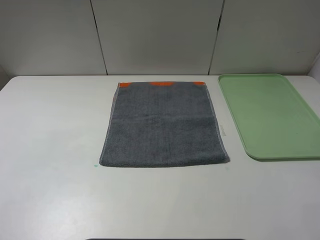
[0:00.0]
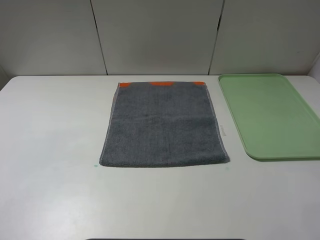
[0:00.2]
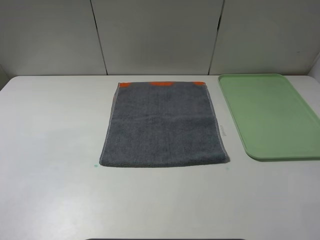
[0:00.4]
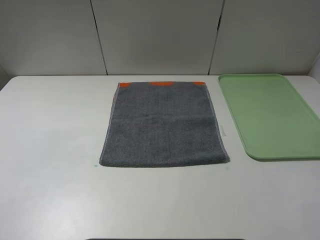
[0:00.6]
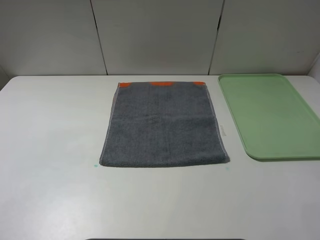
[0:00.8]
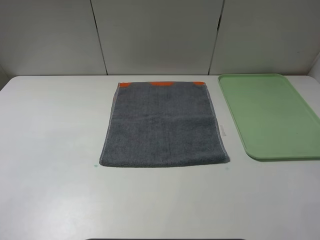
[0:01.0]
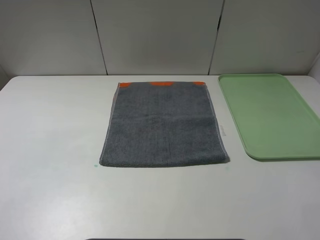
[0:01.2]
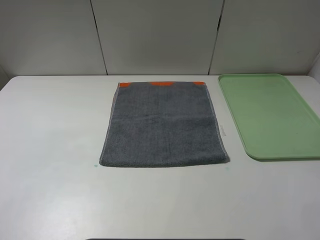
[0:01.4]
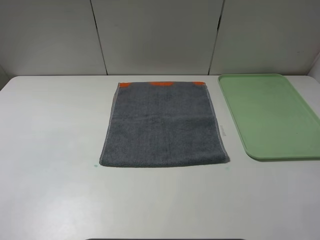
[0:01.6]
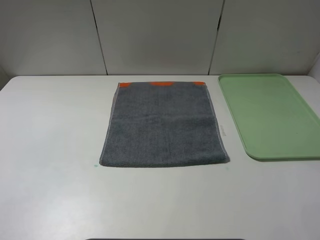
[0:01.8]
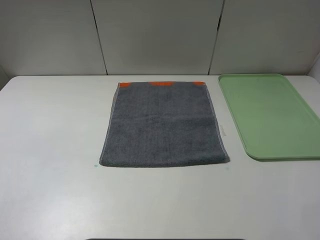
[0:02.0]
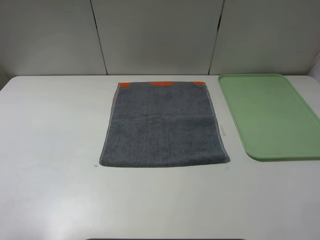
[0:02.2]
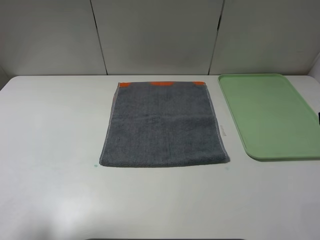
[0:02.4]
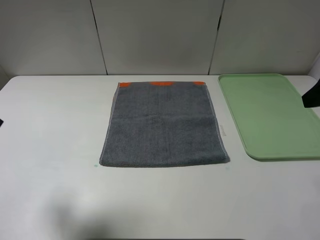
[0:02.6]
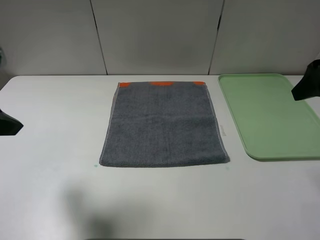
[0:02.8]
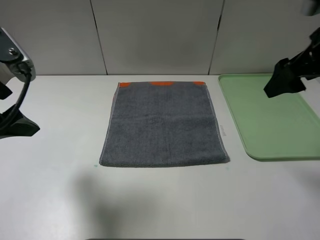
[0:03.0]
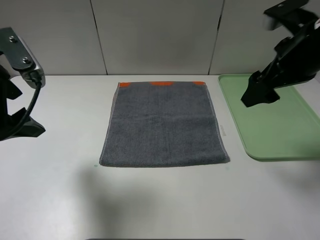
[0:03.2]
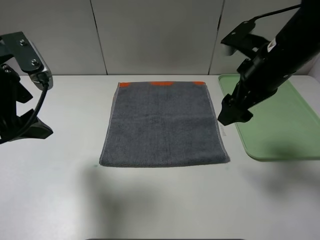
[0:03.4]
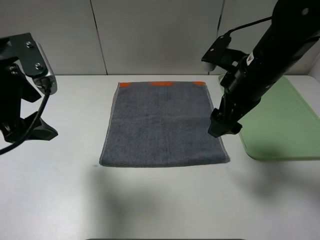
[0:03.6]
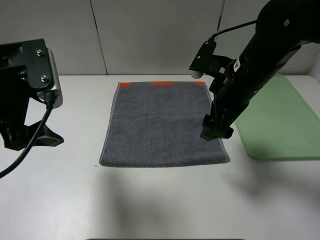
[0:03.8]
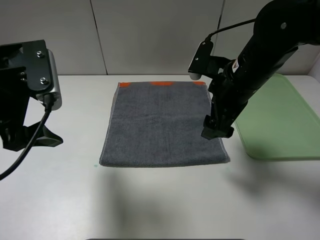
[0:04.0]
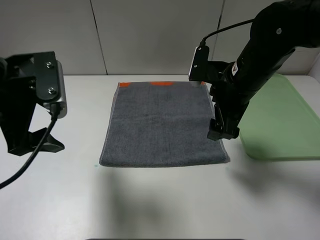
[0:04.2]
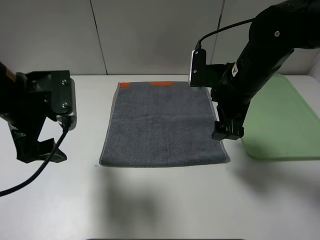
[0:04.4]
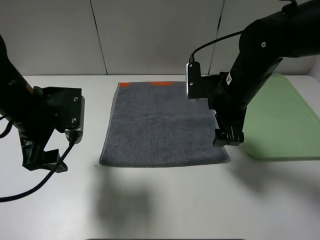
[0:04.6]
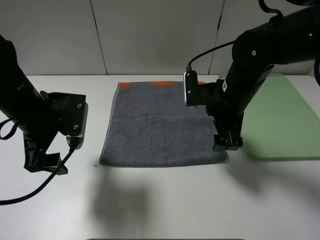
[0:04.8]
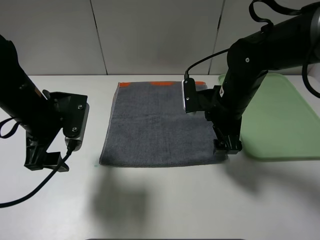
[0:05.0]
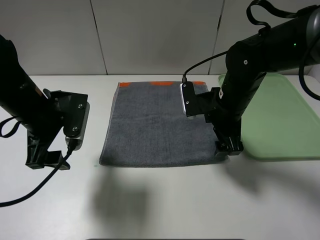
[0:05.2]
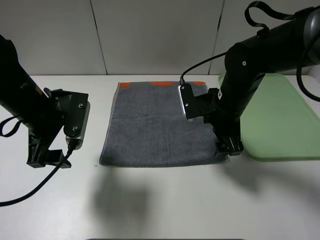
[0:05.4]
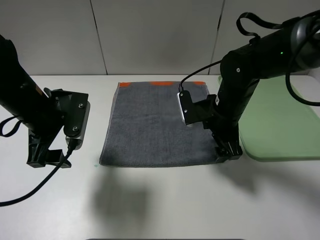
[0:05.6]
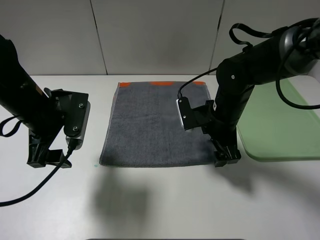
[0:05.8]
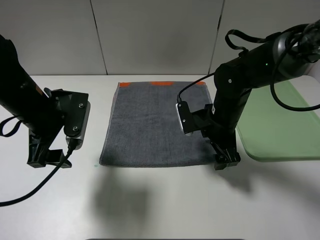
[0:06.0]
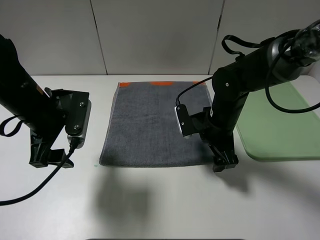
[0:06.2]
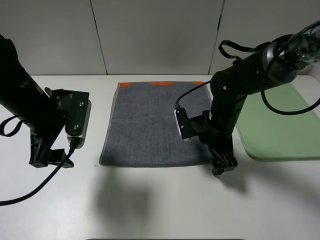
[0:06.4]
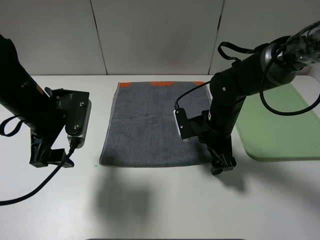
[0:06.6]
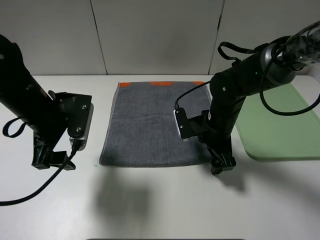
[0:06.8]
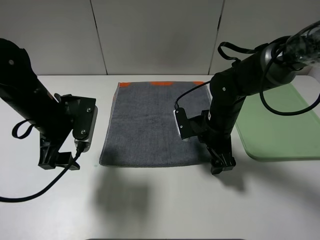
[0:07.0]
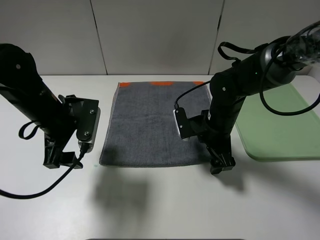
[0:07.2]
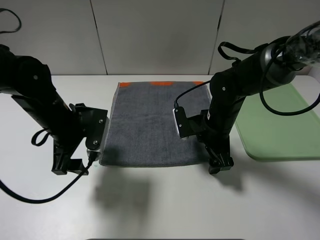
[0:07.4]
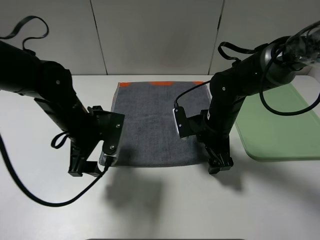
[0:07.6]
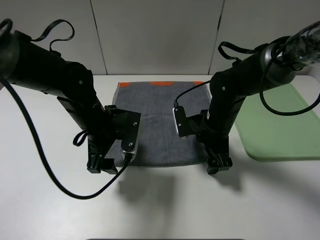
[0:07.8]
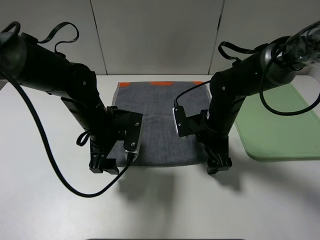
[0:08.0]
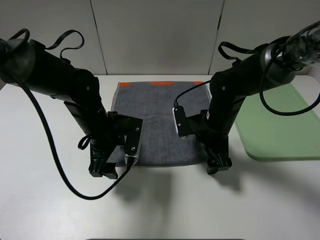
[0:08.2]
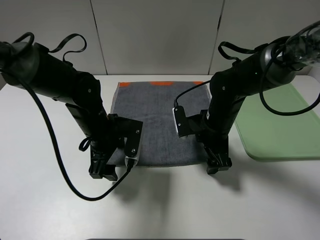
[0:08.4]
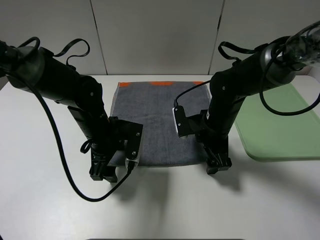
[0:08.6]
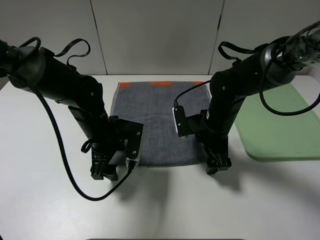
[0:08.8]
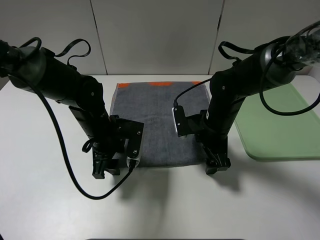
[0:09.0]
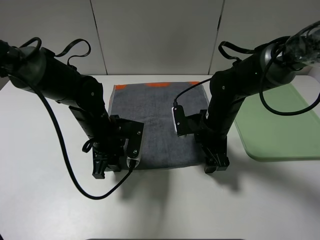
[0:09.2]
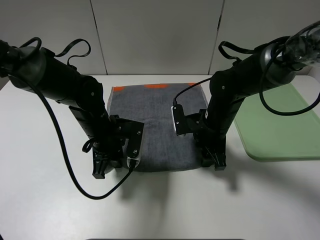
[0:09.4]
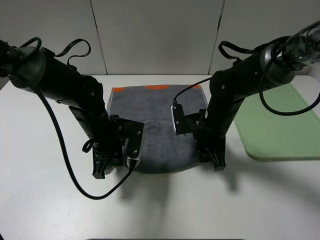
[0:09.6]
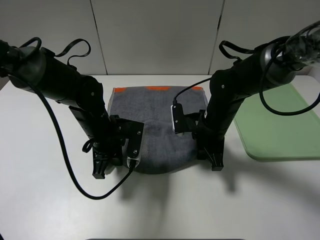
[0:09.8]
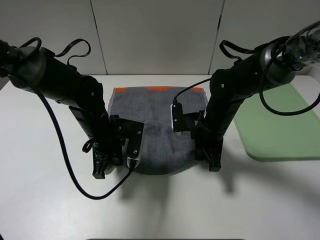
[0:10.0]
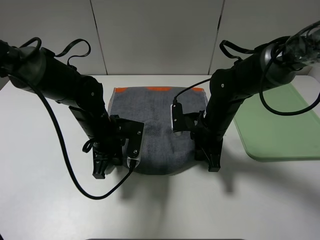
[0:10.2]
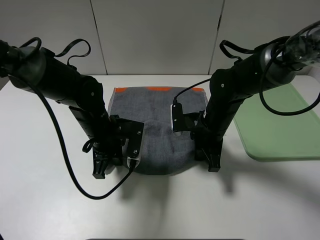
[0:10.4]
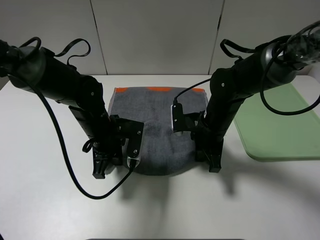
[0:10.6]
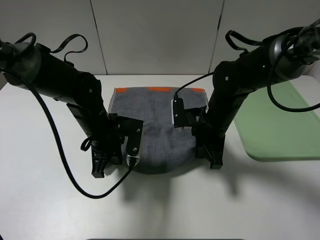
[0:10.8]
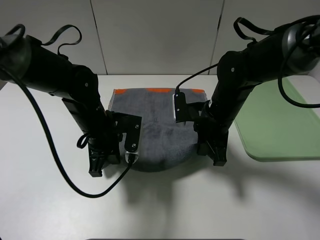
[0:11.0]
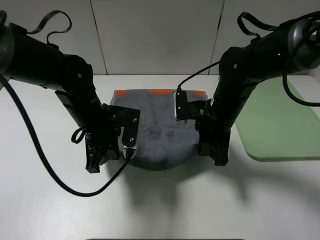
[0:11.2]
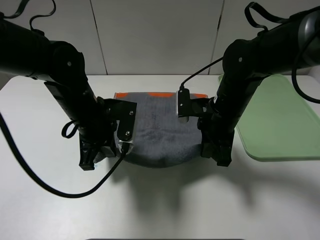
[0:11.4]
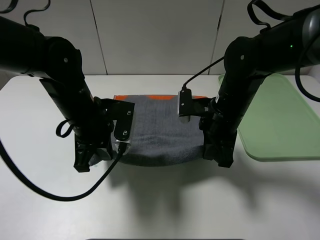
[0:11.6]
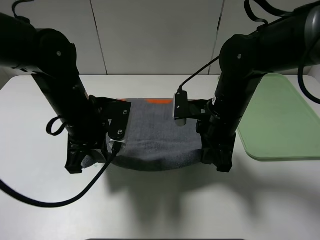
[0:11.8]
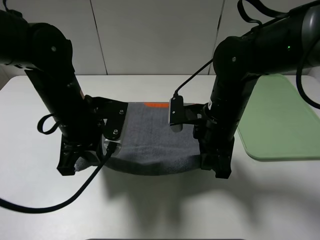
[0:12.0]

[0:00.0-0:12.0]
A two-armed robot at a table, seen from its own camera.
0:00.0 to 0:01.6: Both grippers stay put.
0:01.6 to 0:03.0: The grippers both shift forward by about 25 cm.
0:03.0 to 0:04.4: The left gripper is displaced downward by about 5 cm. The right gripper travels to the left and downward by about 15 cm.
0:04.4 to 0:06.0: The right gripper travels downward by about 10 cm.
0:06.0 to 0:07.6: The left gripper heads to the right and downward, covering approximately 10 cm.
0:07.6 to 0:09.0: The grippers make only small movements.
0:09.0 to 0:10.4: The right gripper closes up; the left gripper closes up.
0:10.4 to 0:12.0: The grippers both shift upward by approximately 10 cm.

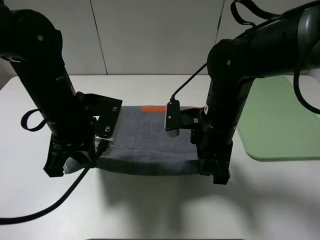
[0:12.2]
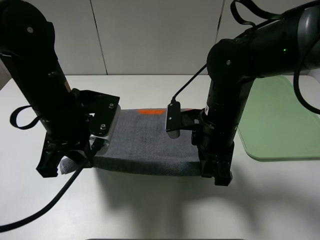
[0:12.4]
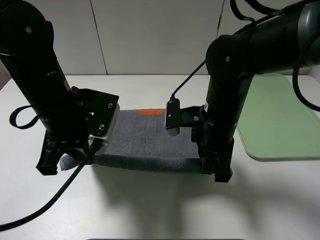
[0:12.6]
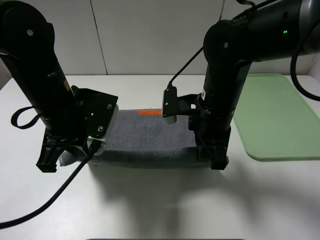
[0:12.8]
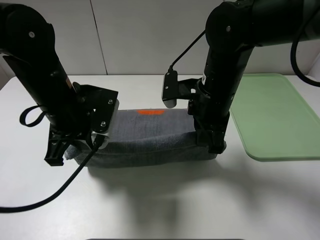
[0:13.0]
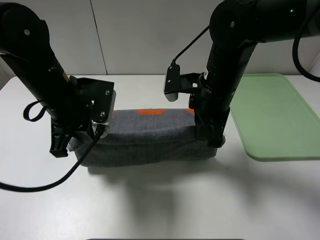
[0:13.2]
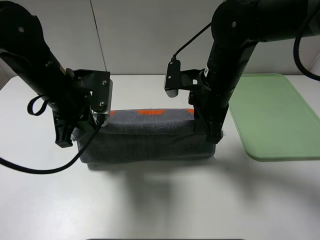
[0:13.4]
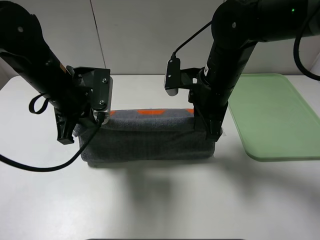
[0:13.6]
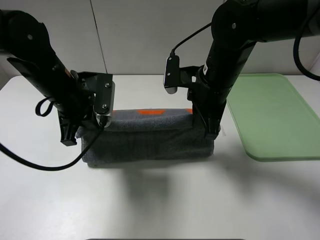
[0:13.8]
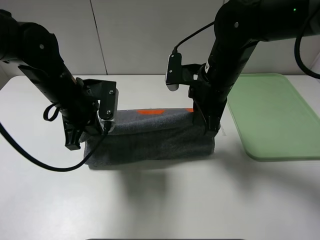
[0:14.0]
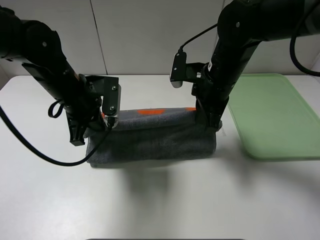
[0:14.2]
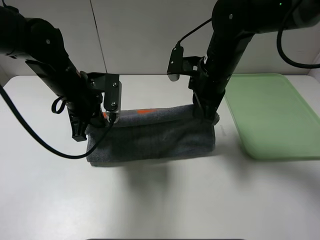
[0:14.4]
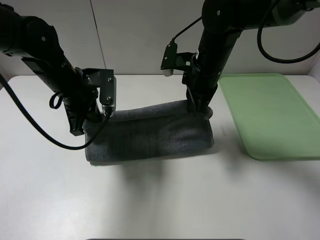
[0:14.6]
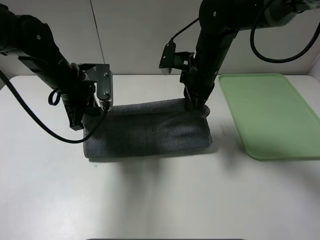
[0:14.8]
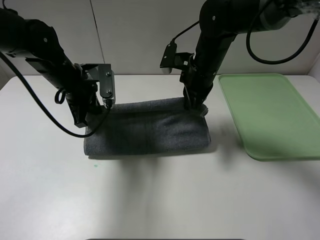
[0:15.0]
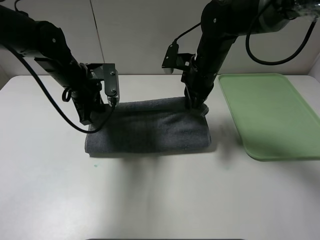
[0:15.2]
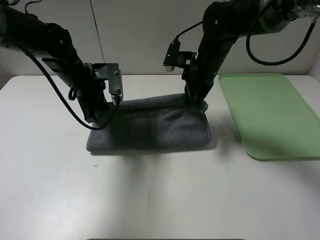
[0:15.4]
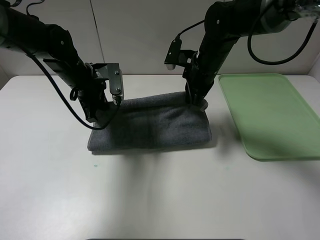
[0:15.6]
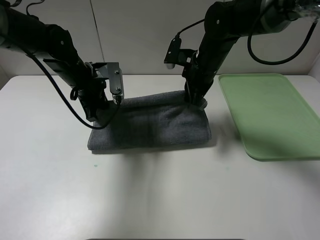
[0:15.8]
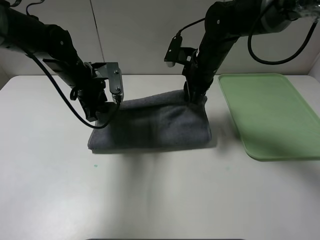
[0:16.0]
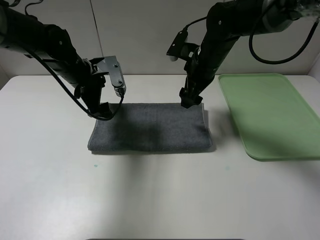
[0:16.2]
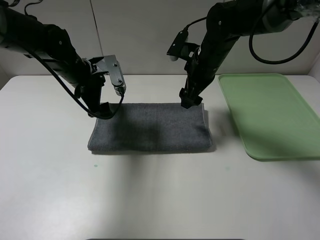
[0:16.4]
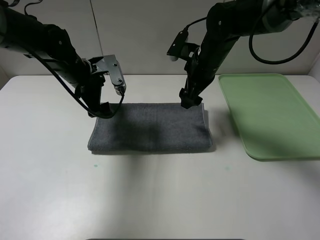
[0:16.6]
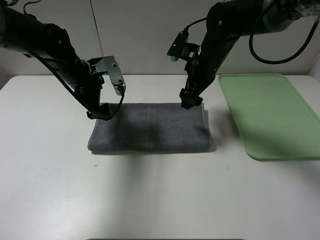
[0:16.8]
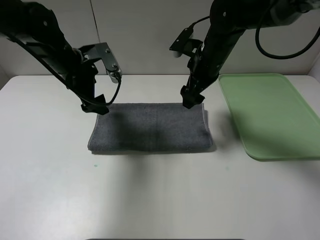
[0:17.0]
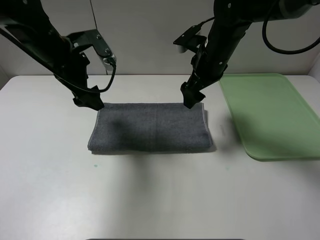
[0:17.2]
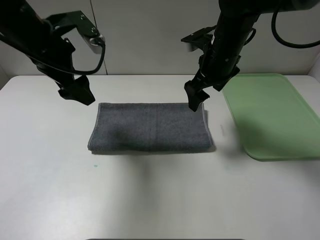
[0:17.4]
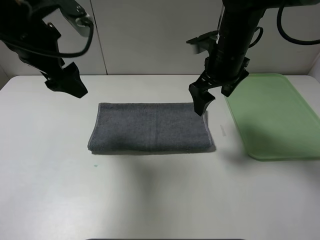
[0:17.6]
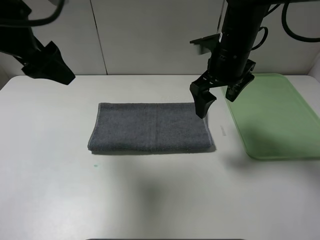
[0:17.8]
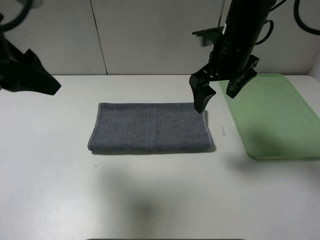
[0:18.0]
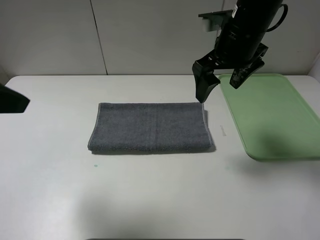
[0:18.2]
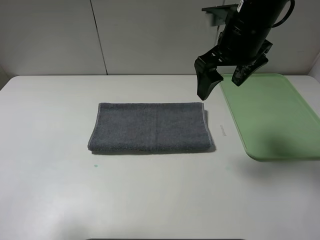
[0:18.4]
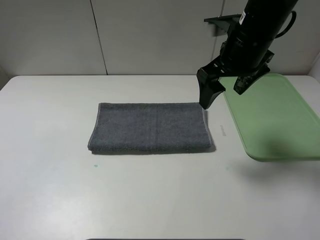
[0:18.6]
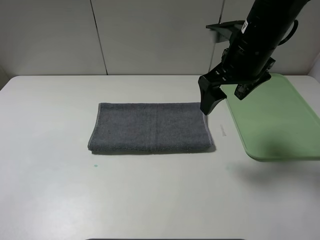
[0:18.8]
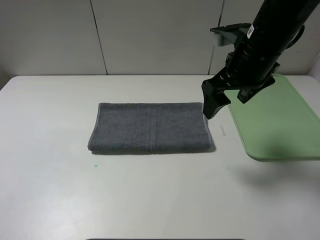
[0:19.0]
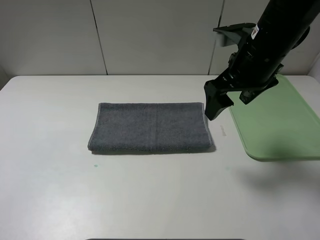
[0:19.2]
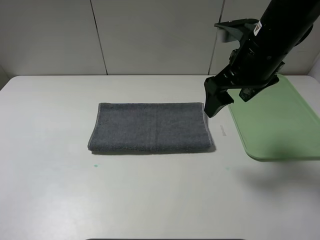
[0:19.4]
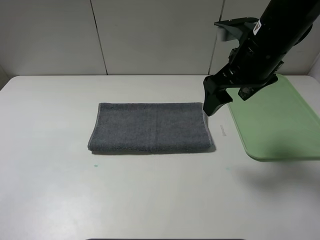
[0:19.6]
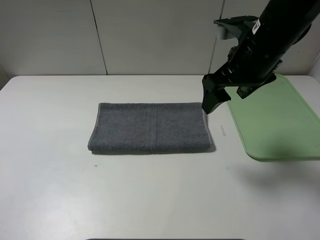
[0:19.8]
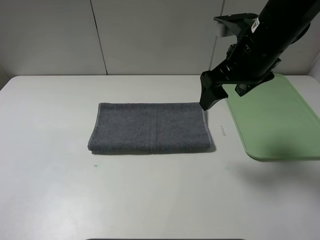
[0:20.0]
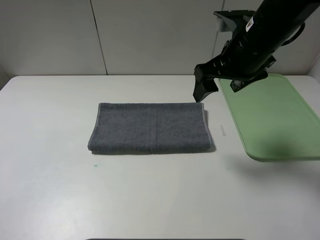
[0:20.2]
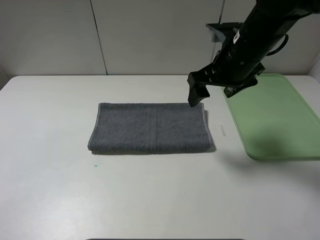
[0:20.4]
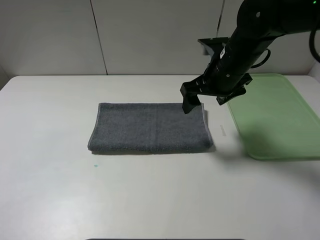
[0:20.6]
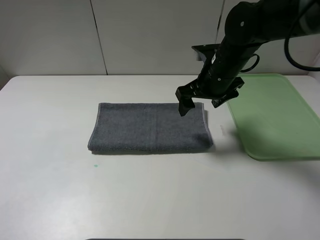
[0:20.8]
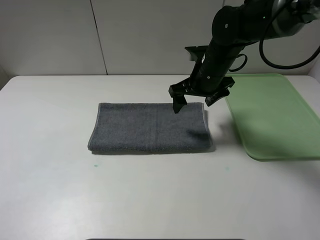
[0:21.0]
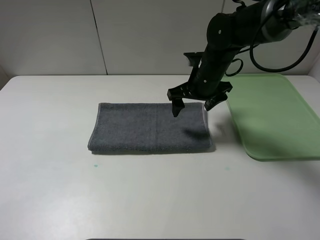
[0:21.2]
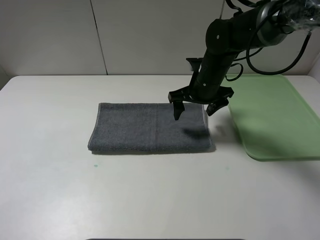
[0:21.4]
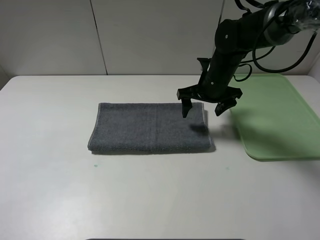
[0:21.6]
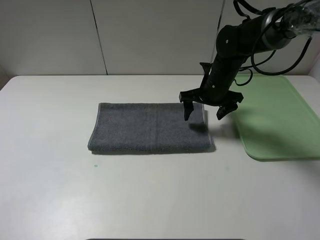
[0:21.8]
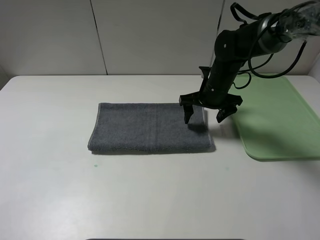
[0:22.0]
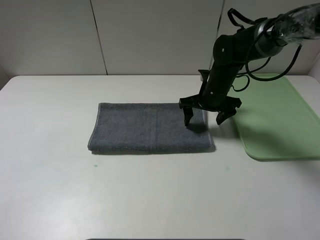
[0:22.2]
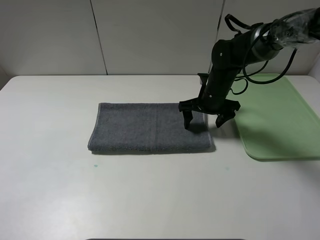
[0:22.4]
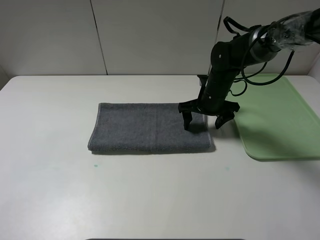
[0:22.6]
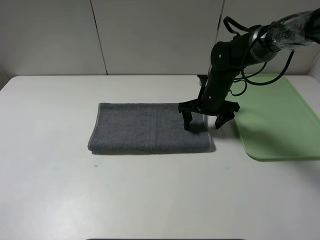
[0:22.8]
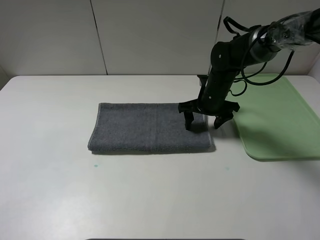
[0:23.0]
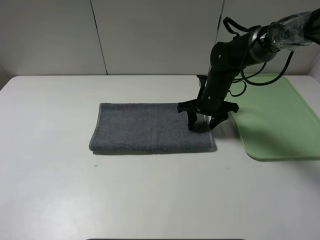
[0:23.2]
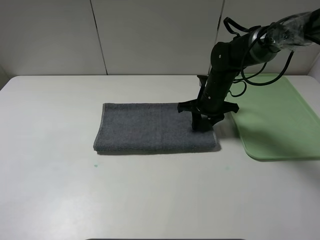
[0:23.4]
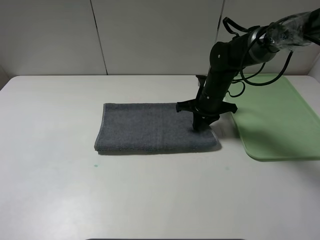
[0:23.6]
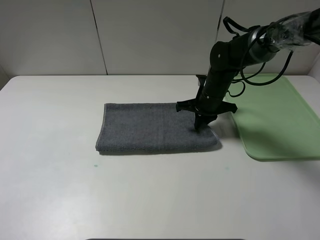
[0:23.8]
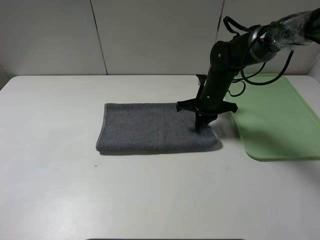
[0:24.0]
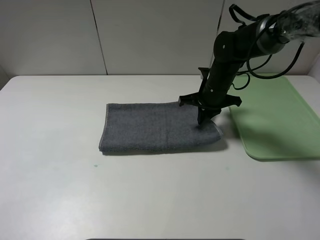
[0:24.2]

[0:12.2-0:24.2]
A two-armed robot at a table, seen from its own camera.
Step, 0:12.2 to 0:16.0: Fold the grey towel upwards.
0:12.2 to 0:13.8: Both grippers move forward, some 5 cm.
0:13.8 to 0:15.2: Both grippers move forward, about 10 cm.
0:15.2 to 0:16.6: The left gripper opens up, while the right gripper opens.
0:16.6 to 0:18.2: The right gripper moves upward and backward, approximately 10 cm, while the left gripper goes approximately 30 cm backward and upward.
0:18.2 to 0:19.8: The left gripper is displaced backward, downward and to the left by approximately 15 cm.
0:19.8 to 0:21.2: The right gripper shifts about 15 cm downward and forward.
0:21.2 to 0:22.6: The right gripper heads downward, covering about 5 cm.
0:22.6 to 0:24.2: The right gripper closes its fingers.
